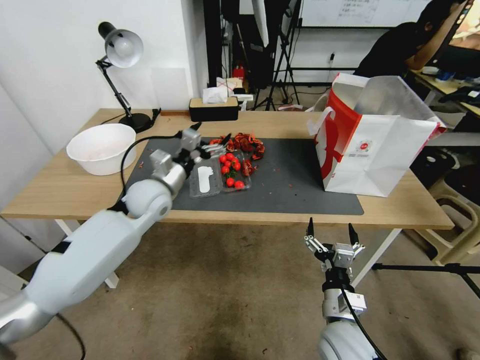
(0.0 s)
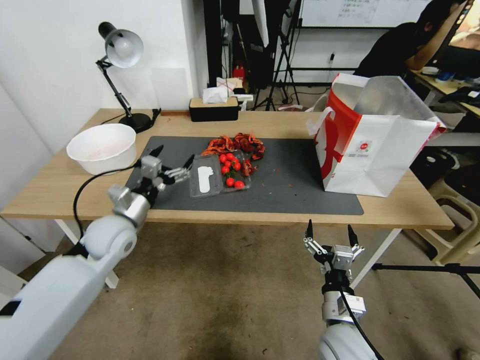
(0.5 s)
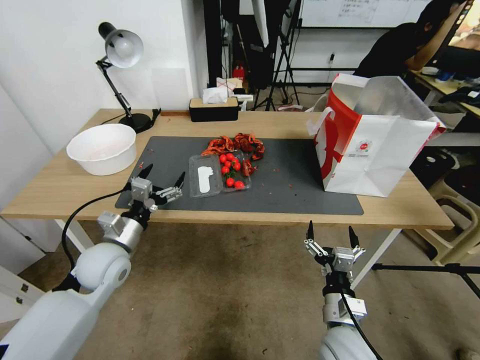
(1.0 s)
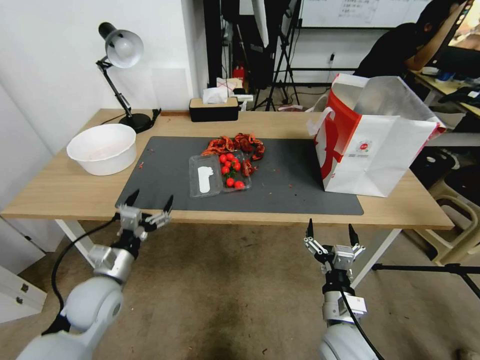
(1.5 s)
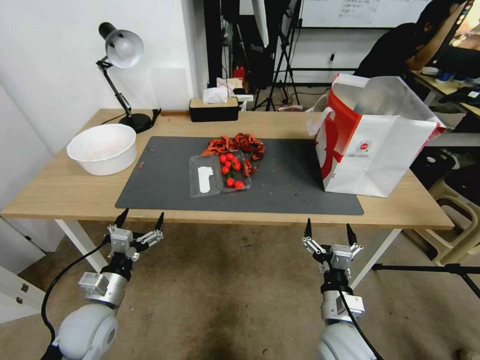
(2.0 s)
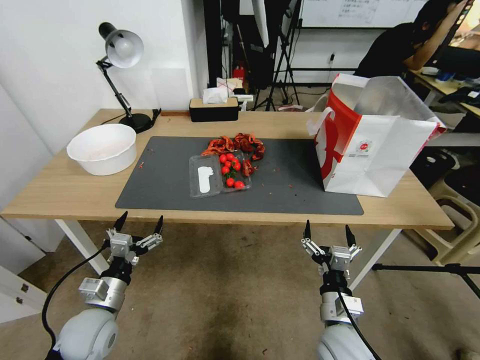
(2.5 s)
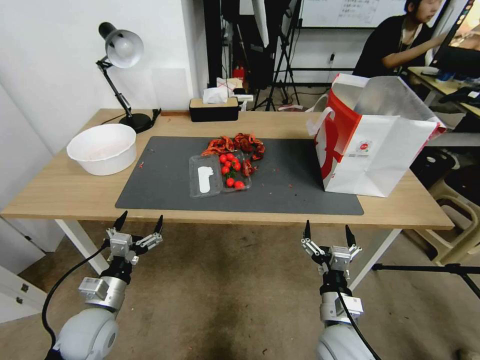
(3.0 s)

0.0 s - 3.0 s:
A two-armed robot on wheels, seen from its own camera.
0.0 s - 1.5 s: The left gripper is displaced backward, downward and to the left by approximately 25 cm.
1.5 s - 3.0 s: The left gripper moves approximately 5 cm.

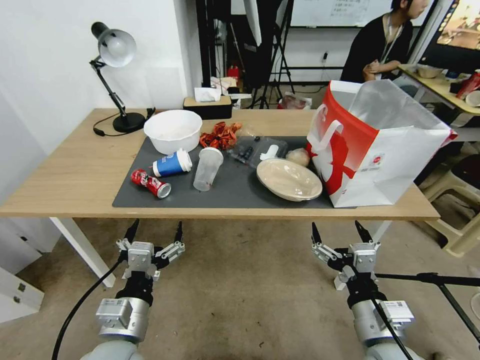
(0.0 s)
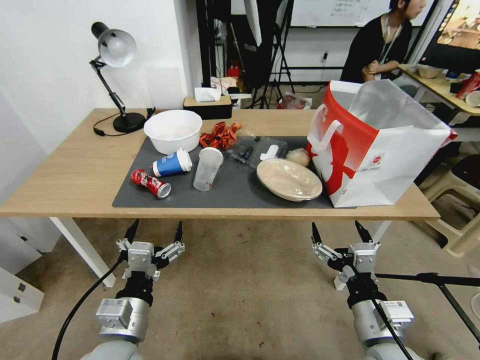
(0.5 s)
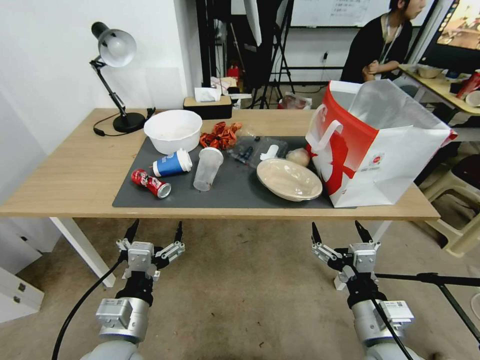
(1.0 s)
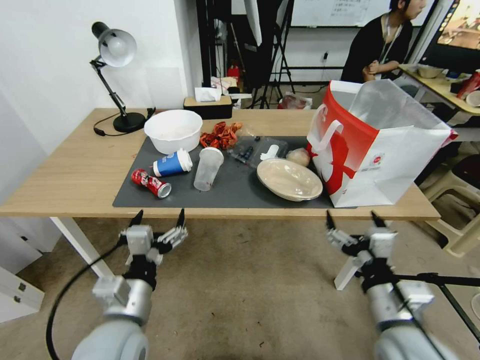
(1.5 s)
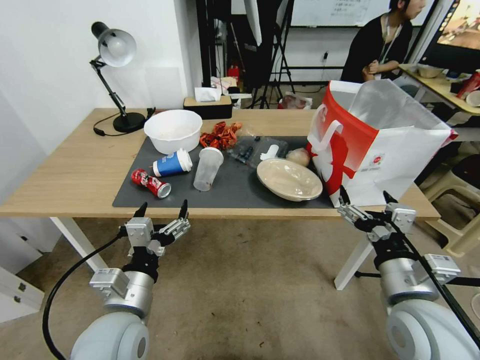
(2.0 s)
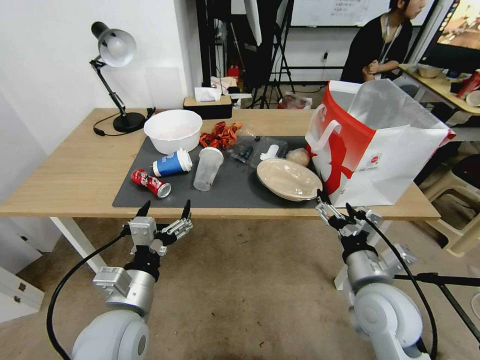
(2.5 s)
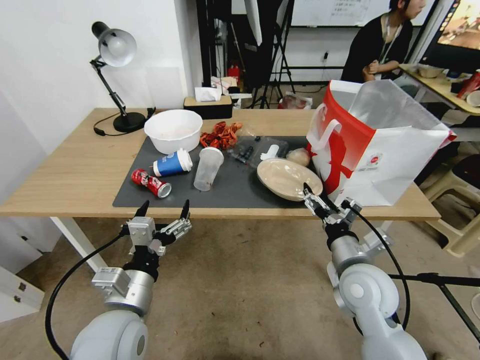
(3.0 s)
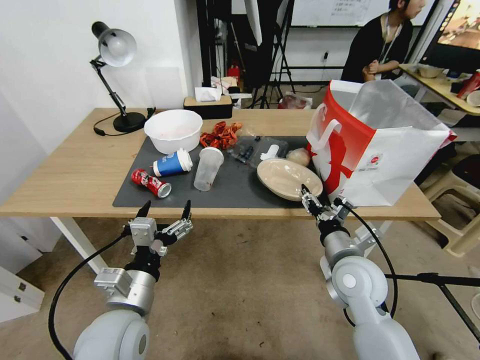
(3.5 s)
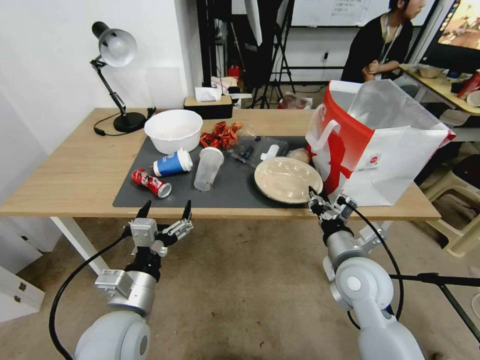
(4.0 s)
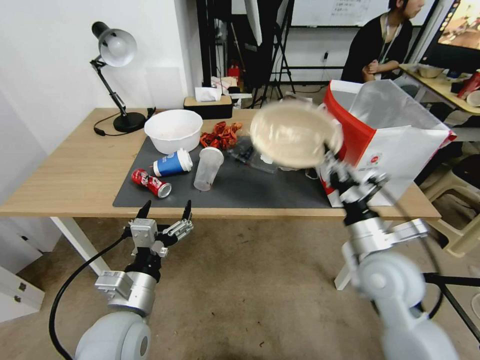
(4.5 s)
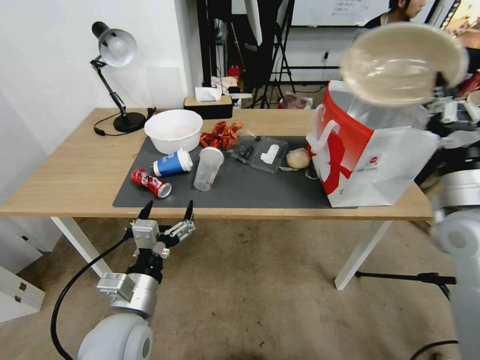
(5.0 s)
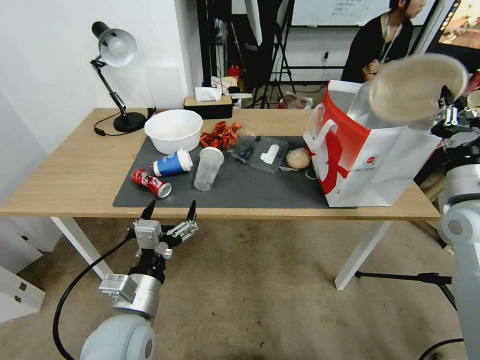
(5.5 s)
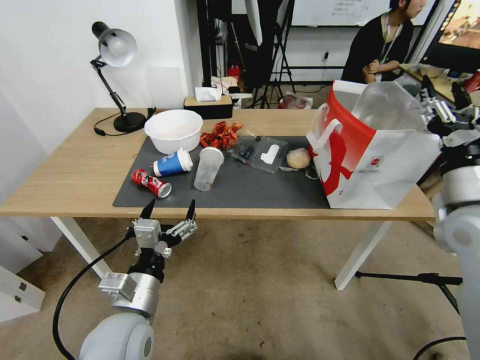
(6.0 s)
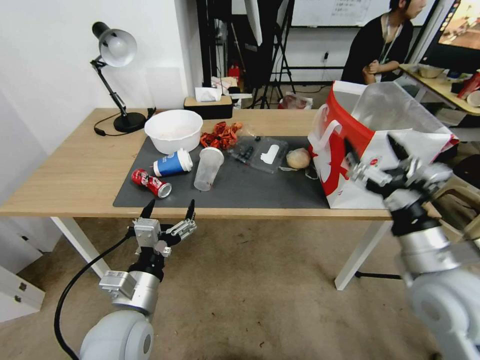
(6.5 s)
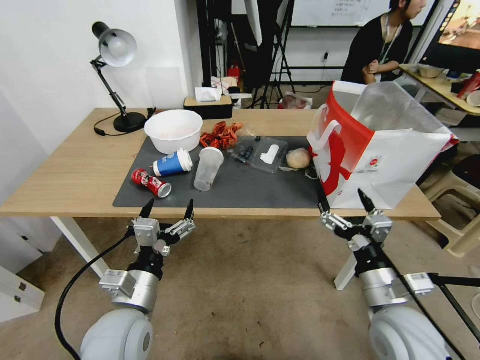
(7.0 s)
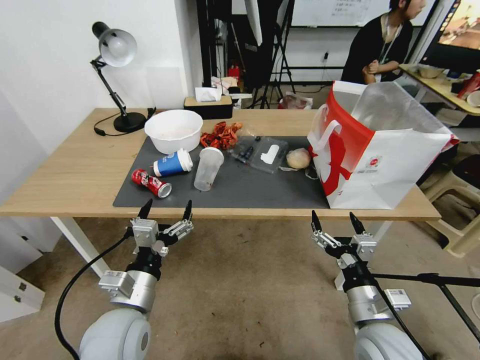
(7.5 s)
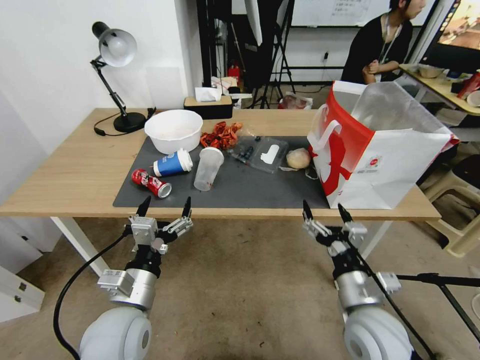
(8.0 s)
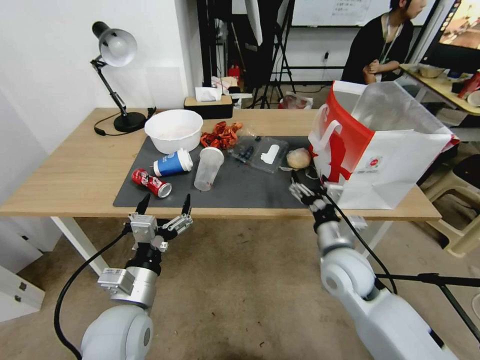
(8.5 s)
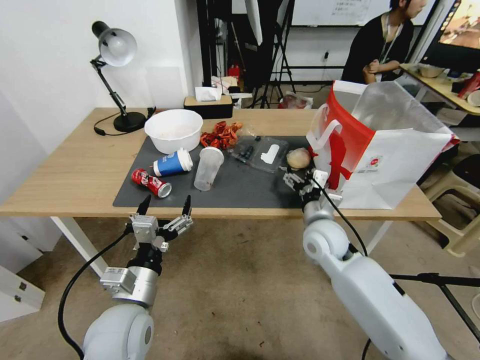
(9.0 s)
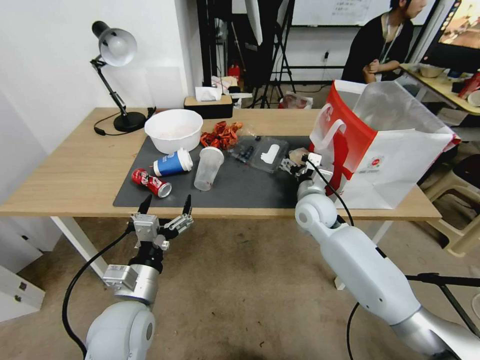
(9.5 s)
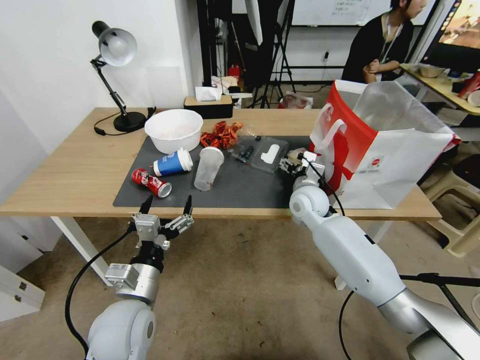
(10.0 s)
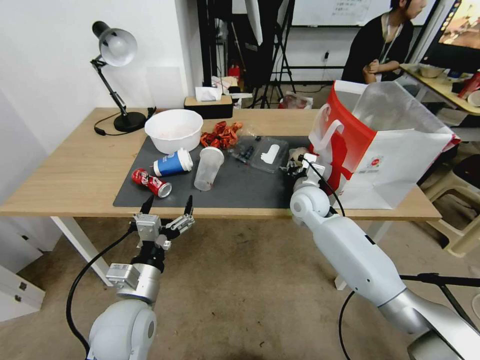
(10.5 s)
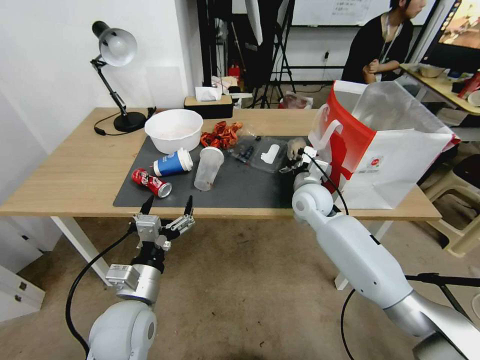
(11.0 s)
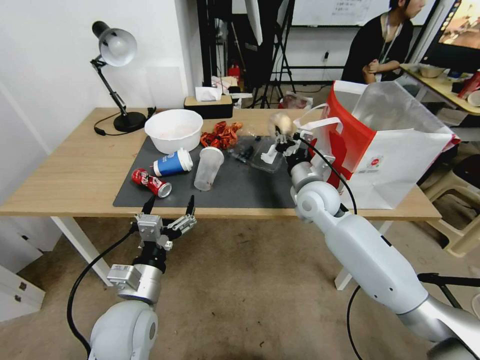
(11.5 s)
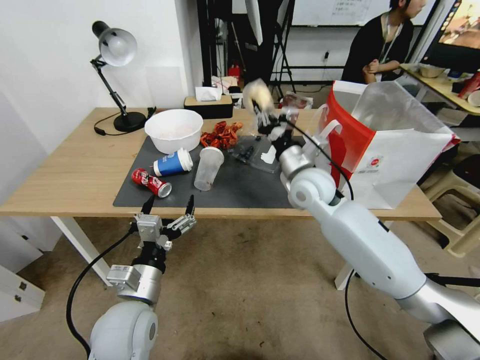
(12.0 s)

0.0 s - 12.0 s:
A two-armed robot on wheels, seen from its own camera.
2.0 s - 4.0 s: The right gripper shifts roughly 10 cm forward and downward, and closes.
4.0 s - 6.0 s: The right gripper heads to the right and upward, covering roughly 20 cm, and opens its fingers.
6.0 s - 8.0 s: The right gripper goes about 25 cm downward, to the left and backward.
8.0 s - 10.0 s: The right gripper shifts approximately 30 cm forward.
10.0 s - 12.0 s: The right gripper moves upward, about 10 cm, and closes.

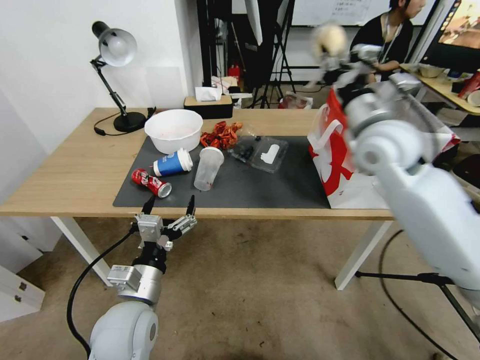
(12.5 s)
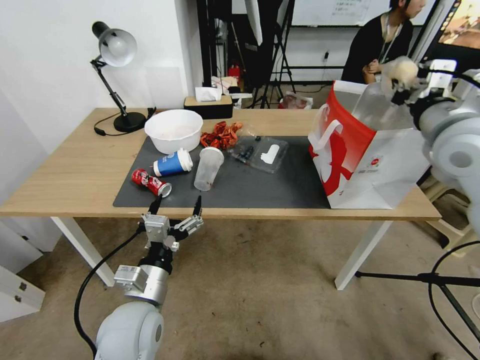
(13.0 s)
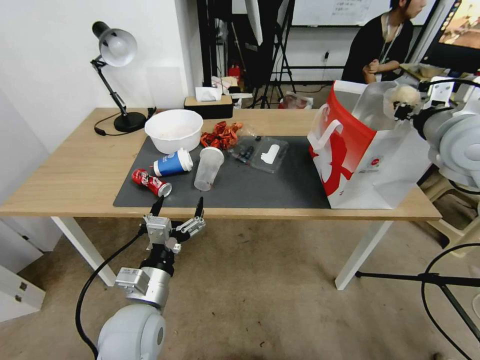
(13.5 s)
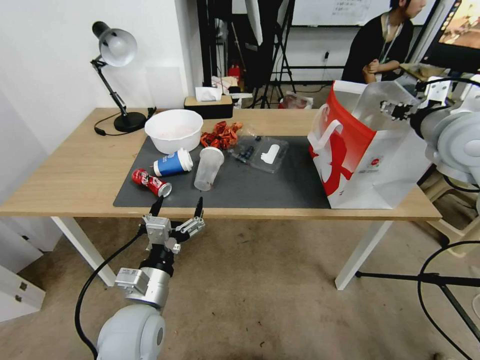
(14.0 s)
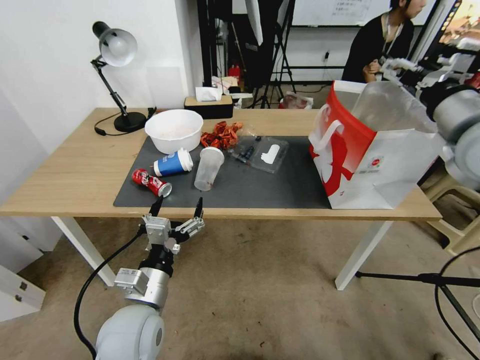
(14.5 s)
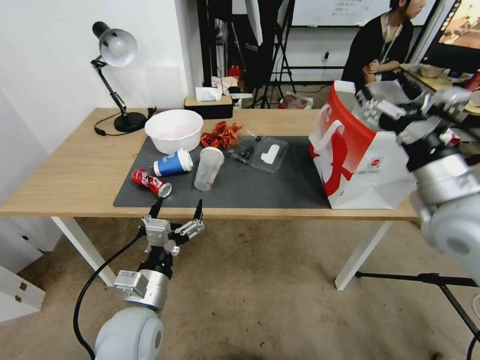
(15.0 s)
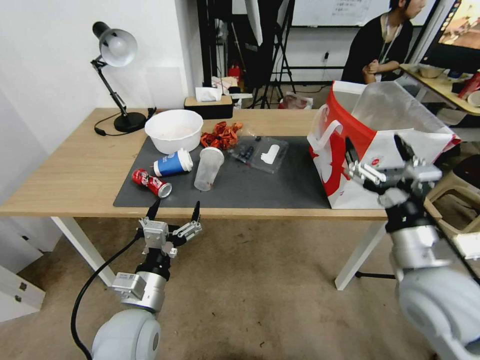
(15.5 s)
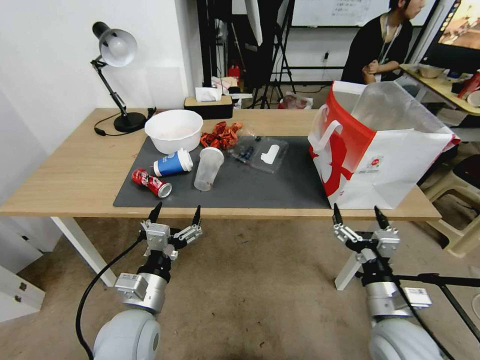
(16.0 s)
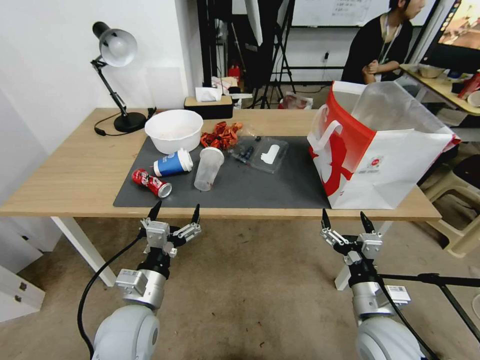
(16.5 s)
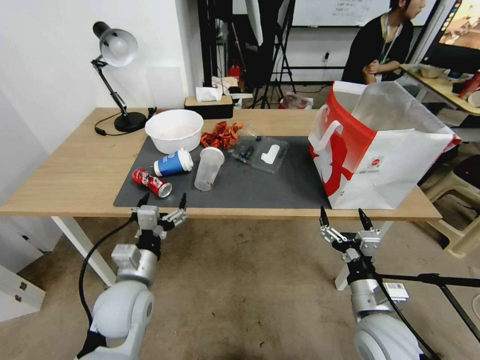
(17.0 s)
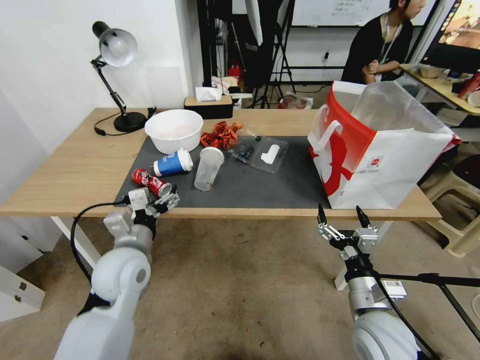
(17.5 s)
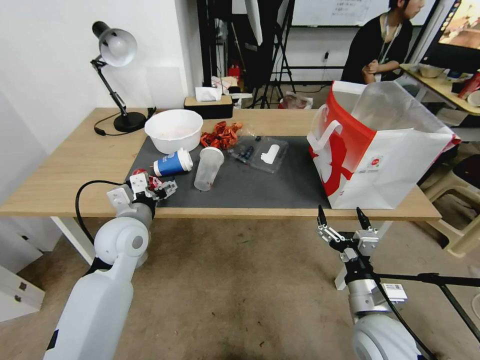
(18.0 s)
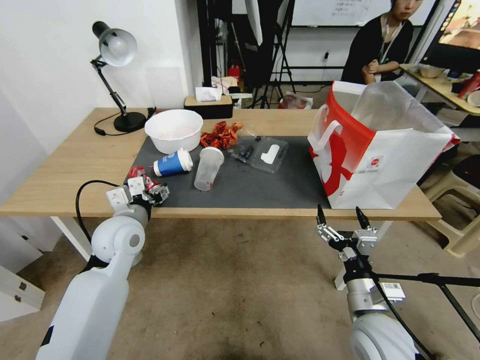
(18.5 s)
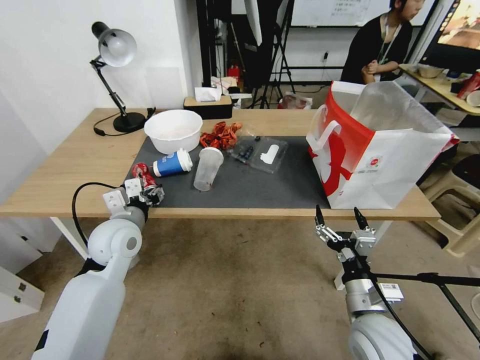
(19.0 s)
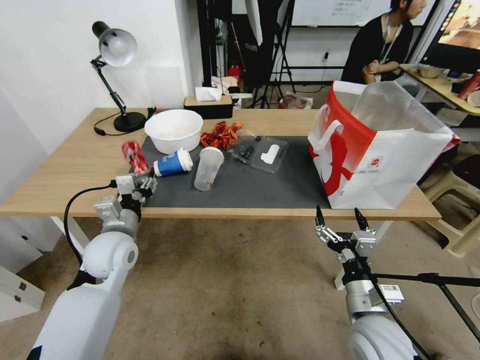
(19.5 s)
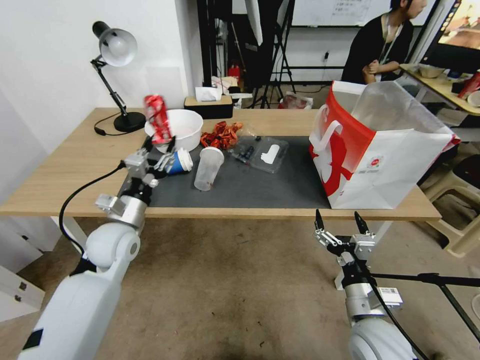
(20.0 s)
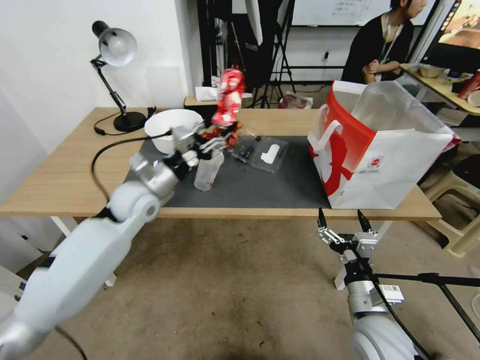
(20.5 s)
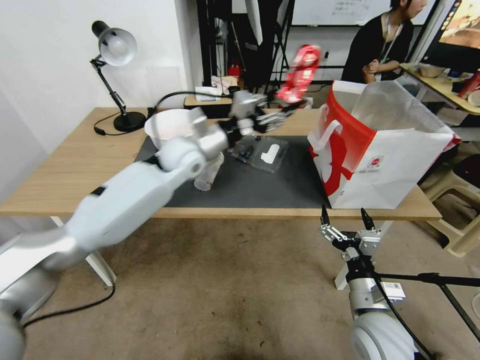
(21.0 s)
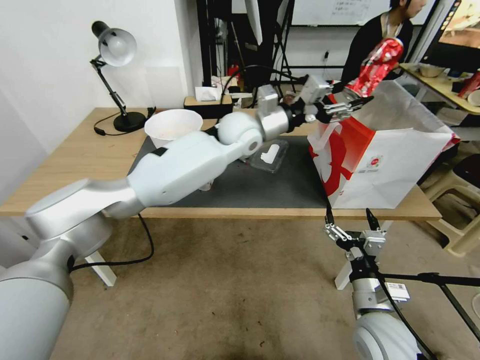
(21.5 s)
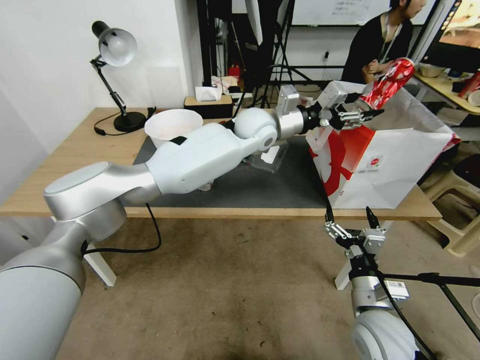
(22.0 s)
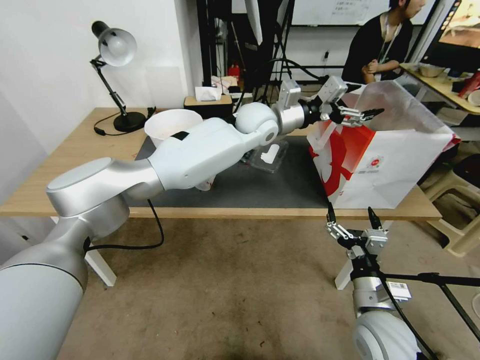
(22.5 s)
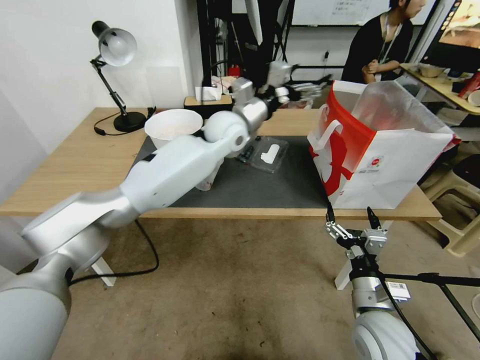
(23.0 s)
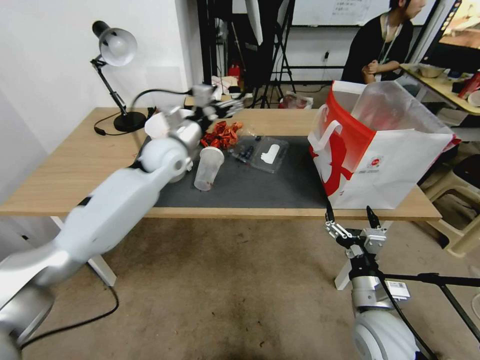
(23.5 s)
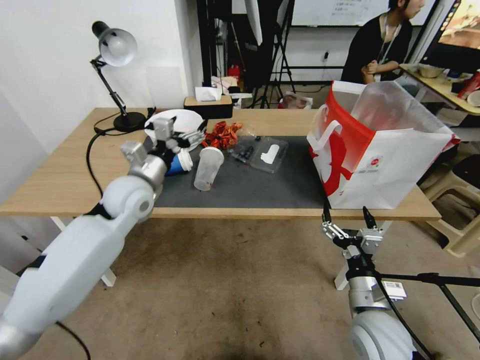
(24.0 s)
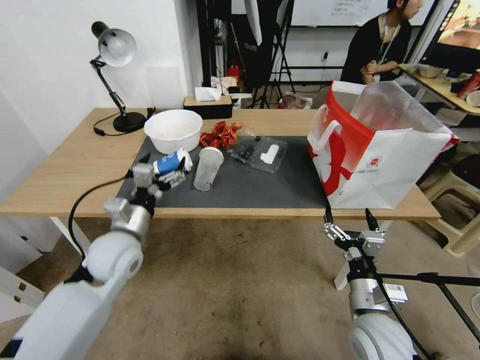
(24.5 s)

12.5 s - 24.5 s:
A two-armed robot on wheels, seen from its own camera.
12.5 s - 14.5 s: The right gripper shifts some 15 cm to the right and backward, and opens its fingers.
14.5 s - 16.5 s: The right gripper shifts roughly 35 cm downward and backward.
16.5 s - 18.5 s: The left gripper travels forward and upward by approximately 15 cm.
18.5 s - 20.5 s: The left gripper shifts approximately 5 cm forward.
20.5 s - 22.5 s: The left gripper is displaced to the right, forward and upward by some 30 cm, and opens.
22.5 s - 24.5 s: The left gripper shifts approximately 40 cm to the left, backward and downward.
